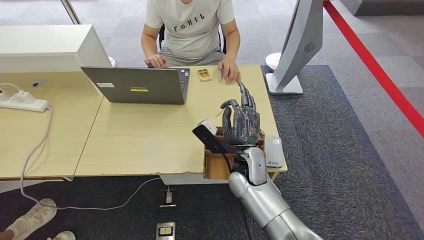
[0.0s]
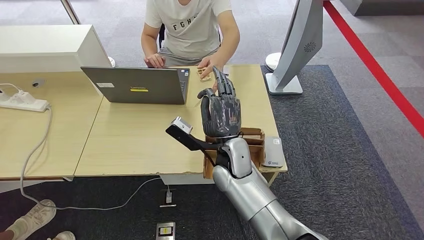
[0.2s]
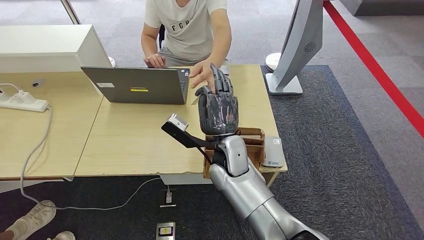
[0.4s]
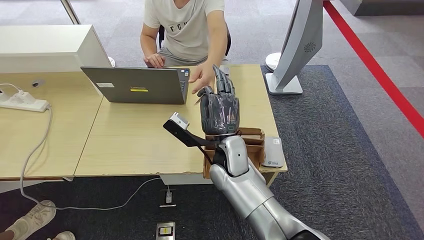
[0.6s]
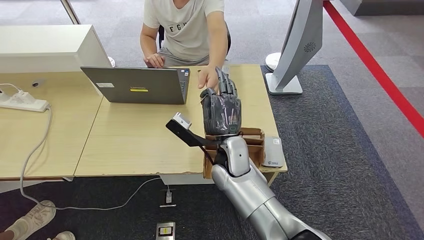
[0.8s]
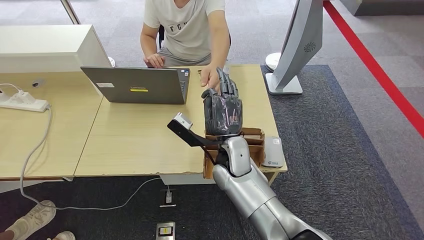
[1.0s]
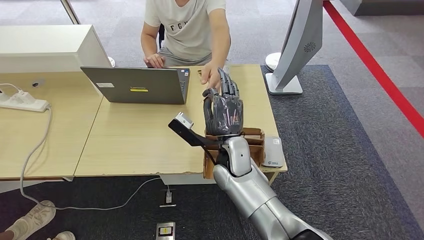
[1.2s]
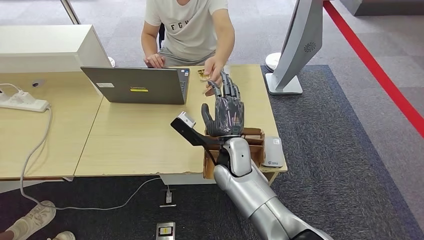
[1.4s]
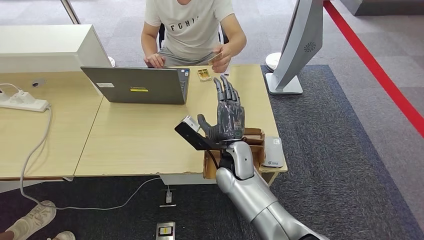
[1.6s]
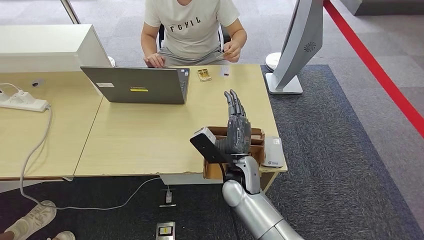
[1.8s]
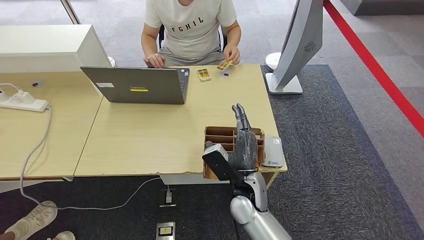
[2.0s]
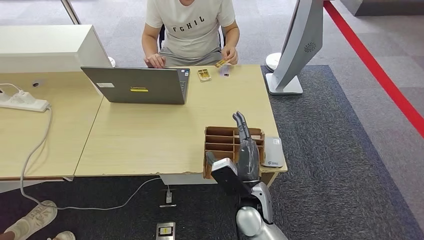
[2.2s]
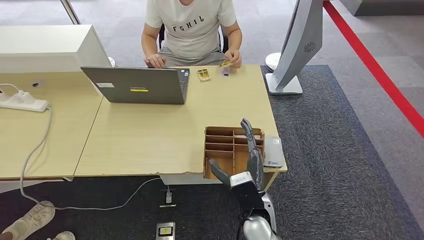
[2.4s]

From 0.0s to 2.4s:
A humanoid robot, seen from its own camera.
Step, from 0.2s to 2.2s: Hand the room key to the person.
From 0.0s to 1.2s: The hands move only a little.
From 1.2s to 2.4s: The right hand is displaced backward, downward and to the right by approximately 15 cm.
